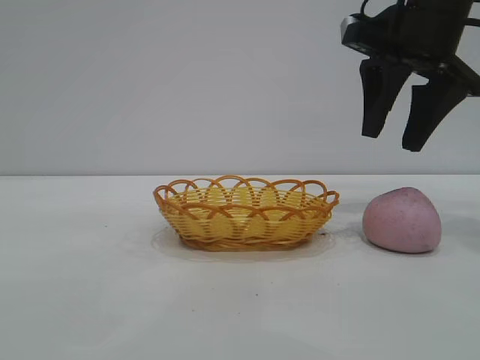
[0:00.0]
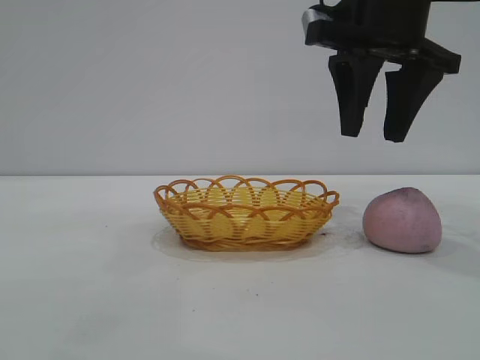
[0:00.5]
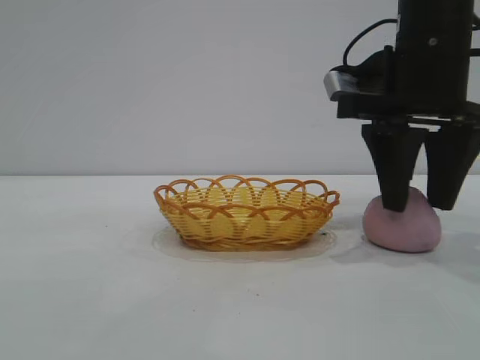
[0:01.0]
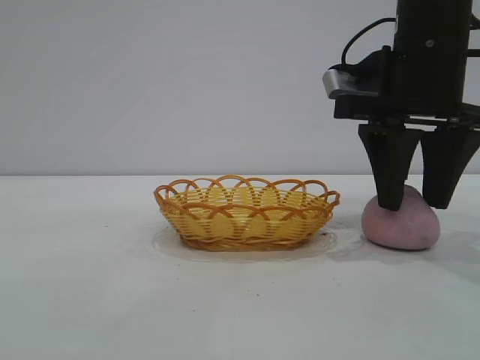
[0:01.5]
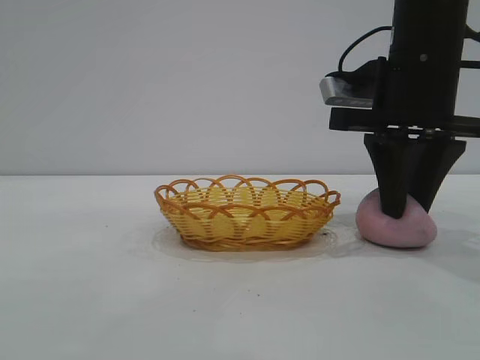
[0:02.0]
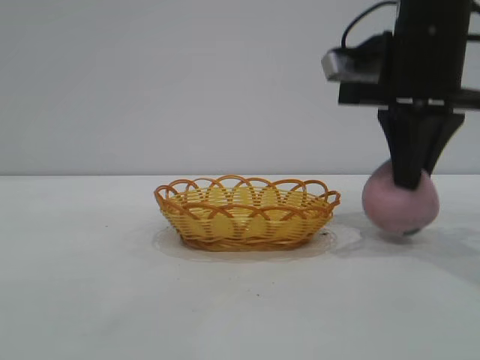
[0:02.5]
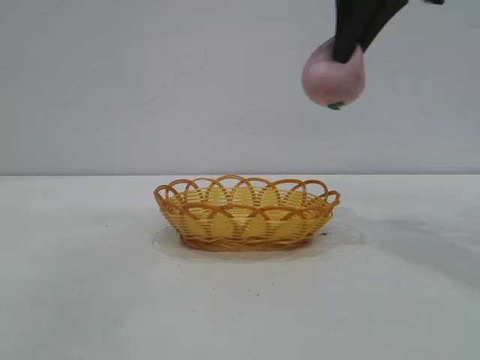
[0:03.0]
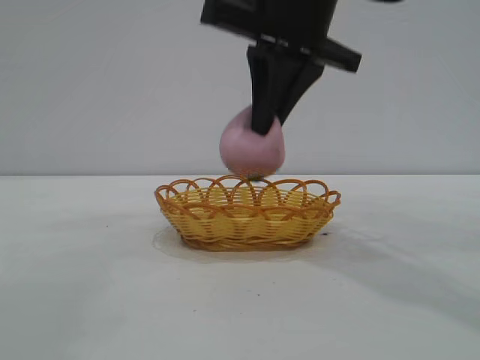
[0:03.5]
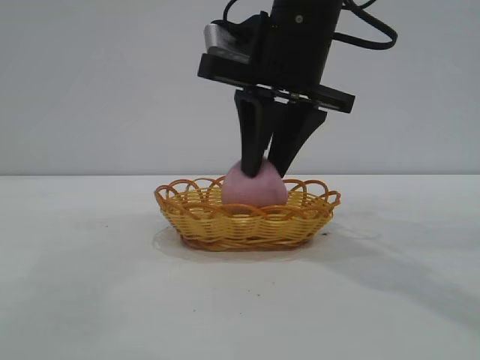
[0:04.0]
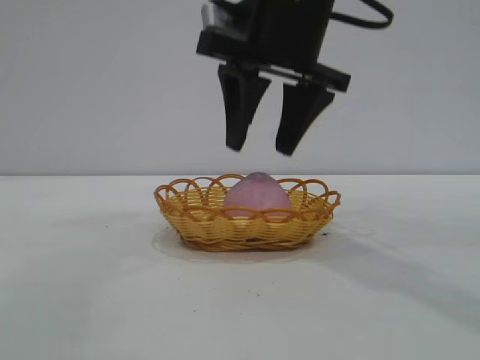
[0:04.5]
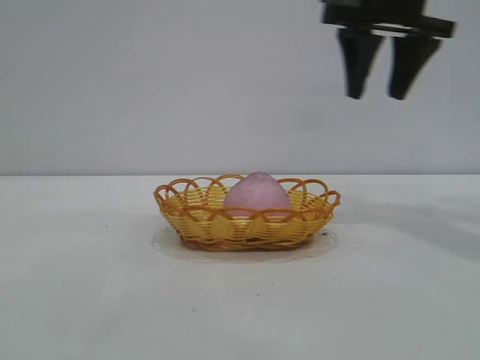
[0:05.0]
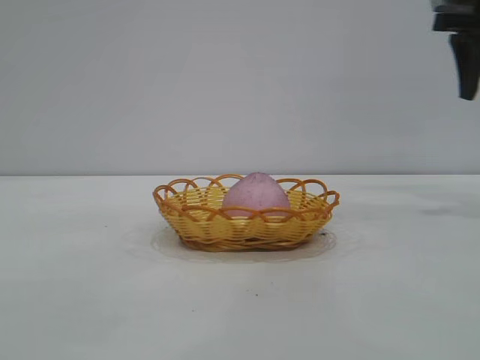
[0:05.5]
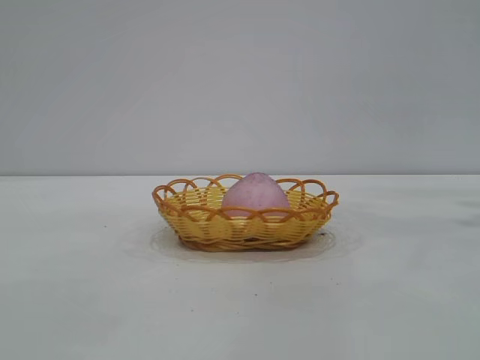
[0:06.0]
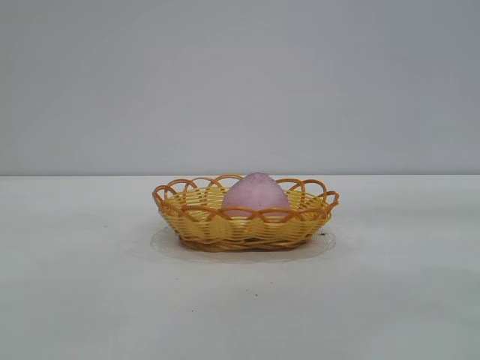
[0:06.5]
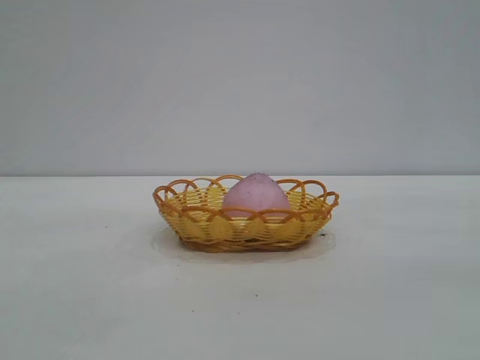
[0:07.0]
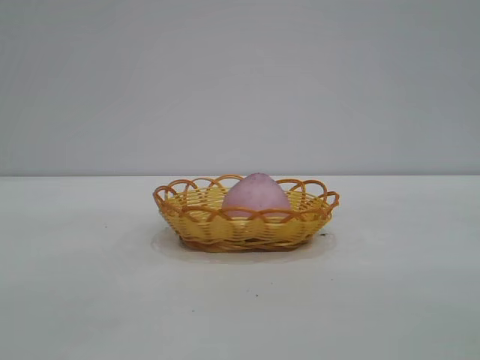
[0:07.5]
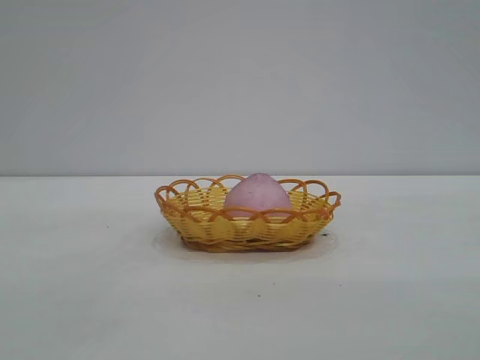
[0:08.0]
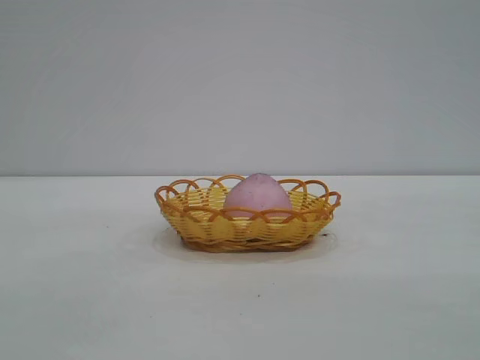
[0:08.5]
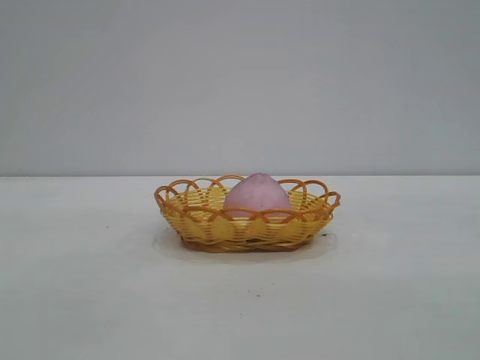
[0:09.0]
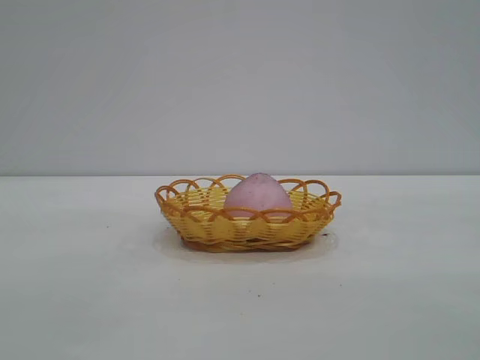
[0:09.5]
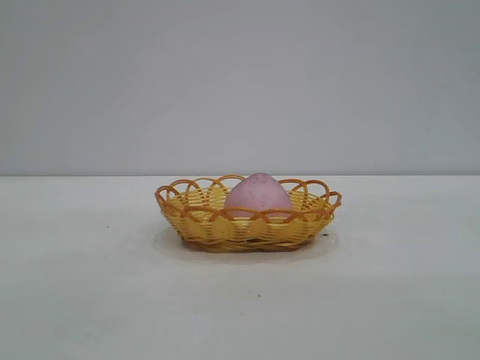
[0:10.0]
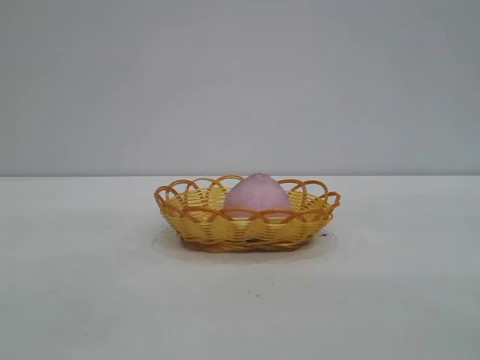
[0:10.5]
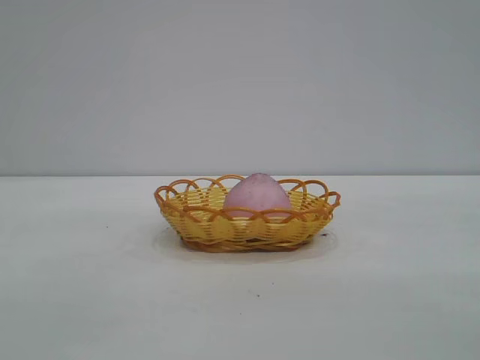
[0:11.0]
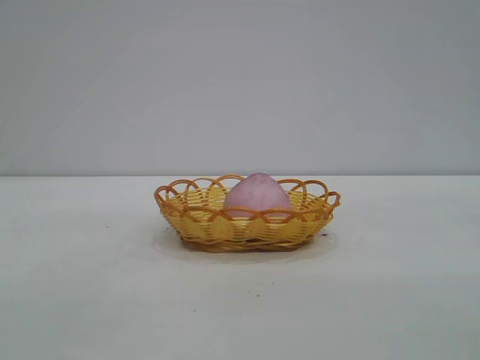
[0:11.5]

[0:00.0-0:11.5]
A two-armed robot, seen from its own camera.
Task of the whole recording: pick up the peach and put it into the basket.
Step, 0:00.0 to 0:02.5: Pick up the peach.
Step, 0:03.0 to 0:04.5: place the peach into the basket.
